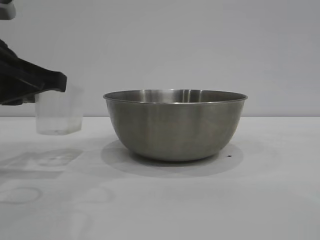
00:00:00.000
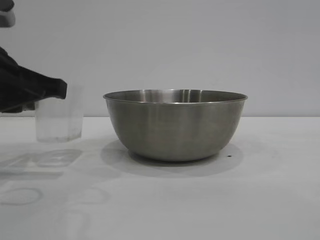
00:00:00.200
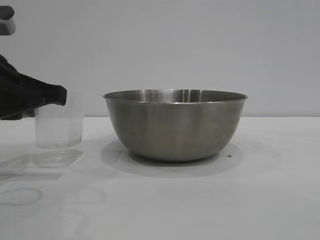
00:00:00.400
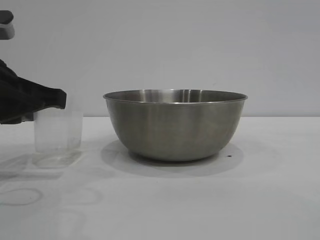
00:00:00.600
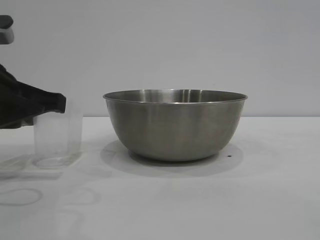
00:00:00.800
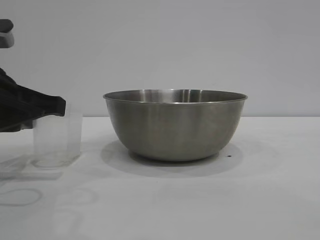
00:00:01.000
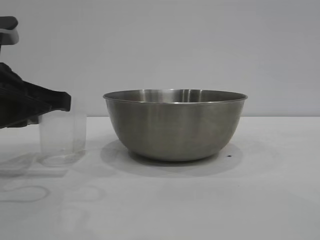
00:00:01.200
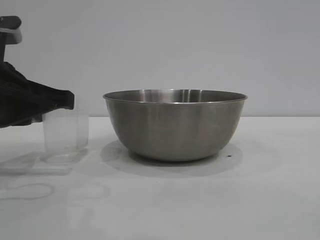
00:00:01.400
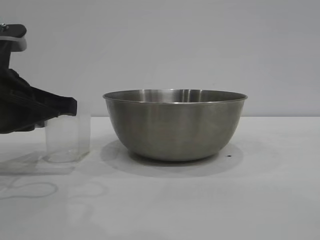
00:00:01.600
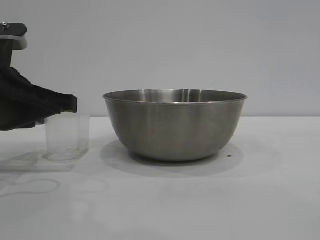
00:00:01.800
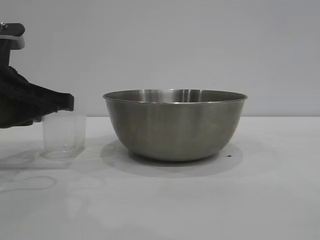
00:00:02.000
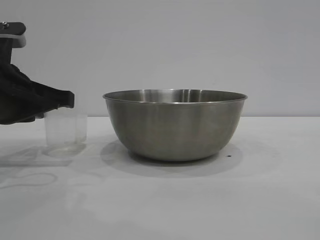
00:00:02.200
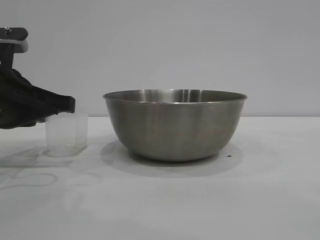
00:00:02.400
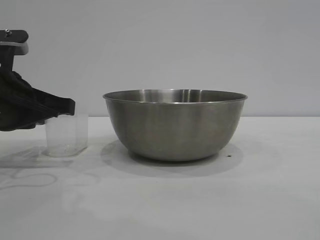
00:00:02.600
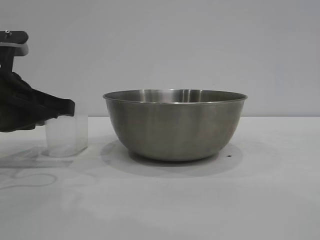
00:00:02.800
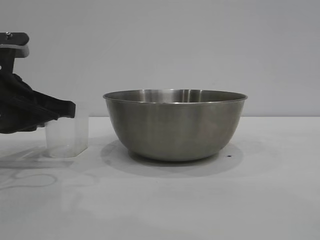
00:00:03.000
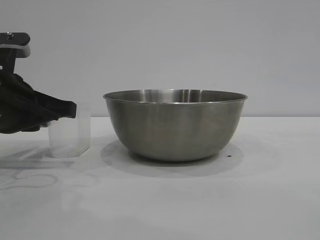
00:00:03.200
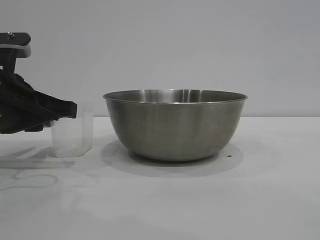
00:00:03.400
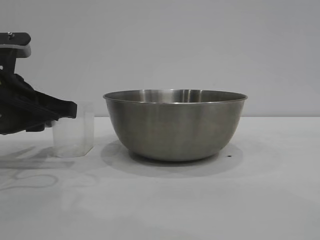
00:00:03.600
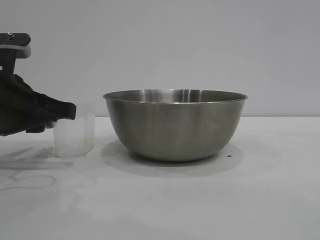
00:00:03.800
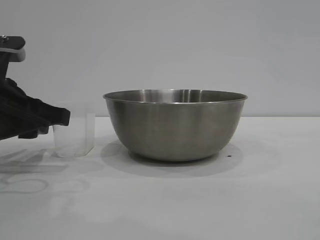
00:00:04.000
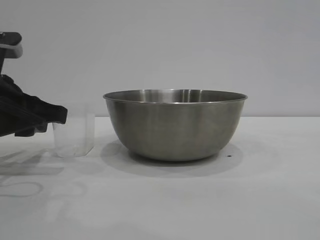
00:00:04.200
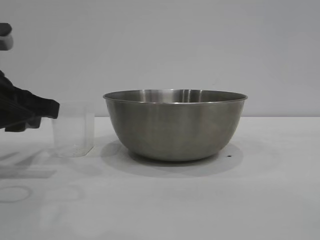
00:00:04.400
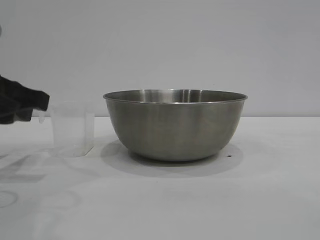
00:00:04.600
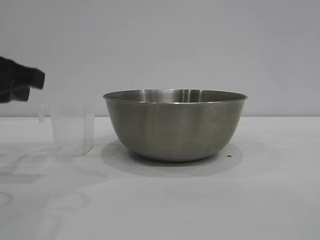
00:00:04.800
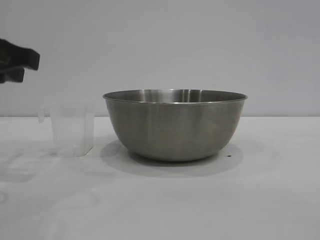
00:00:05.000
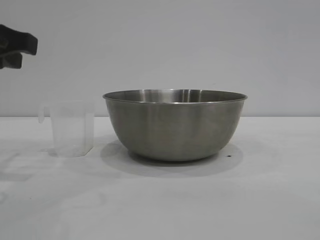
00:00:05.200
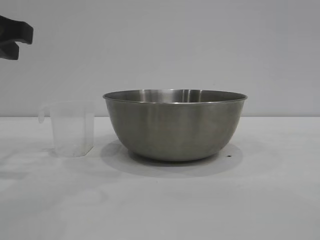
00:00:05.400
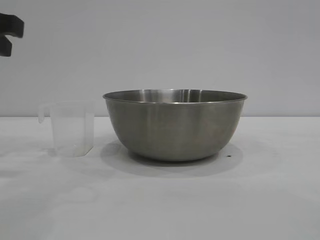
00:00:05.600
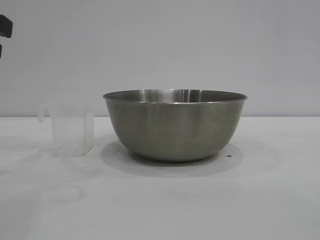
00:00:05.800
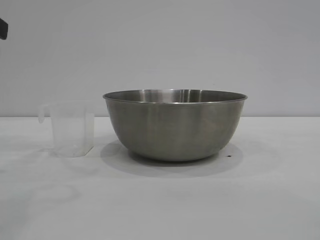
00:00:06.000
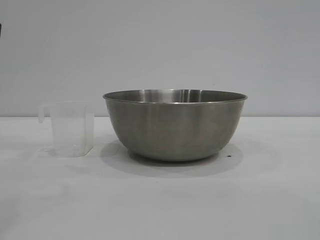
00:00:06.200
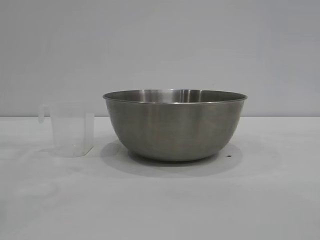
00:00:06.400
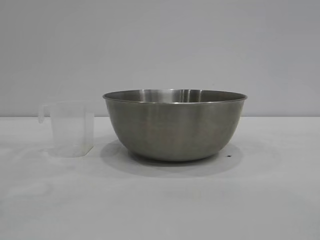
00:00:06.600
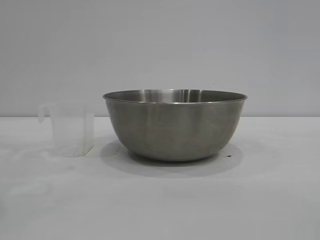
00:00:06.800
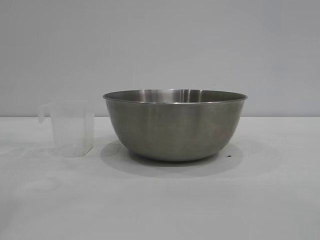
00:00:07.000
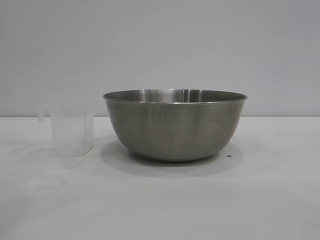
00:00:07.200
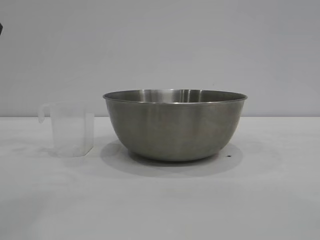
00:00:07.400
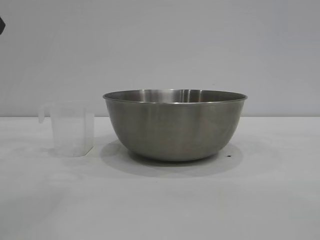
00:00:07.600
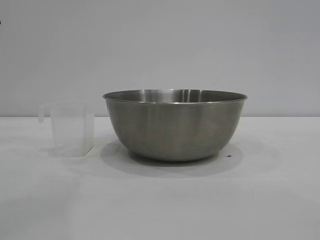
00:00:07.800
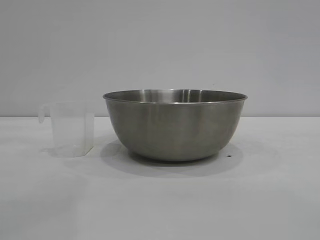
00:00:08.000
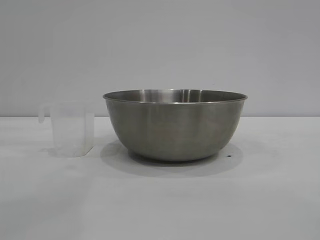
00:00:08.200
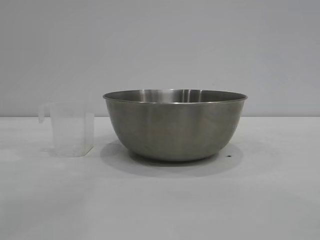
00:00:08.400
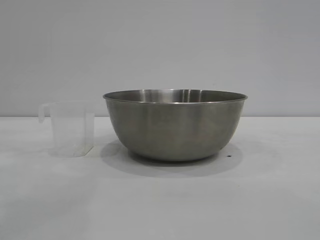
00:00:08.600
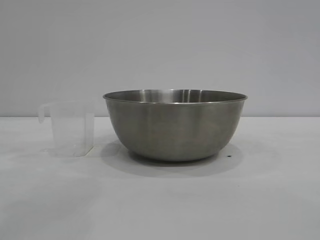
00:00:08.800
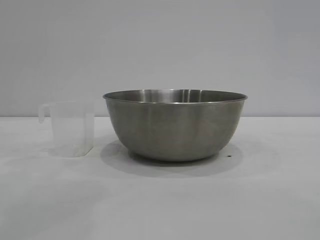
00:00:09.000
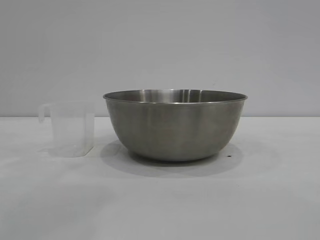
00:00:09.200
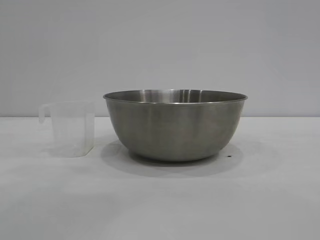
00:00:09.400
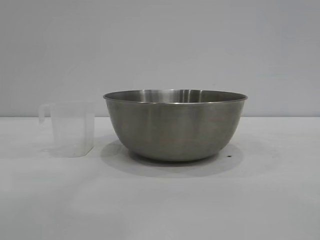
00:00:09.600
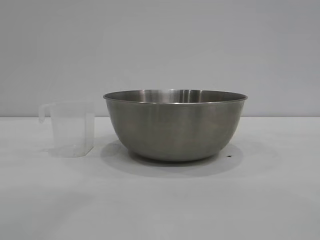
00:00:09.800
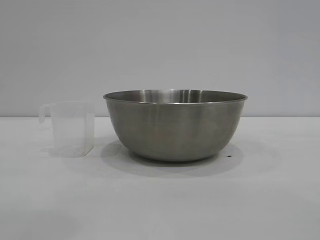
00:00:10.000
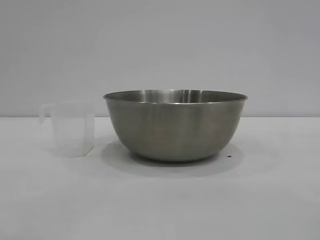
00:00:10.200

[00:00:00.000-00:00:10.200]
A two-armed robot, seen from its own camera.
Task of the whole recording: the right gripper grasp the rice container and place it in the center of the table, the left gripper grasp the rice scoop and pour the rice into the rice container.
Step, 00:00:00.000 to 00:00:04.600: Place the cup on the table with the left gripper.
